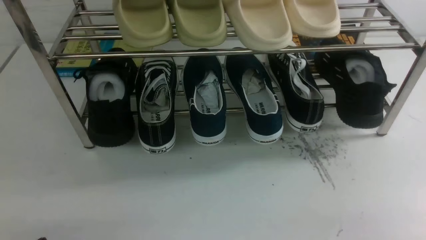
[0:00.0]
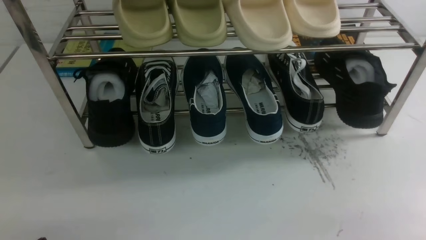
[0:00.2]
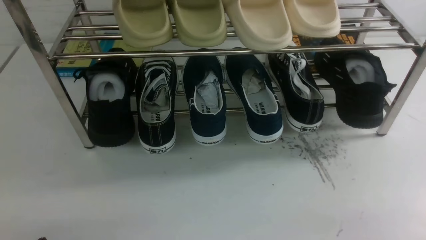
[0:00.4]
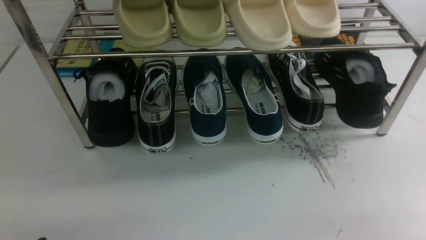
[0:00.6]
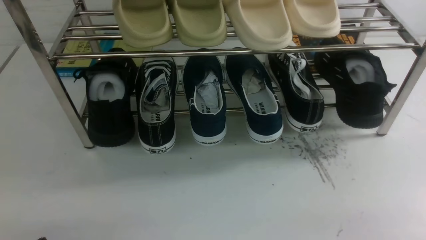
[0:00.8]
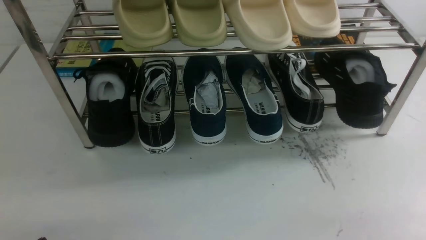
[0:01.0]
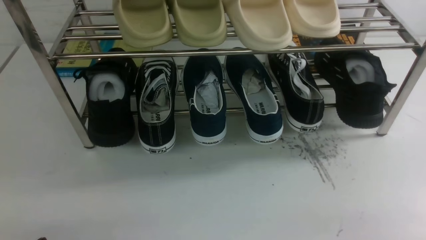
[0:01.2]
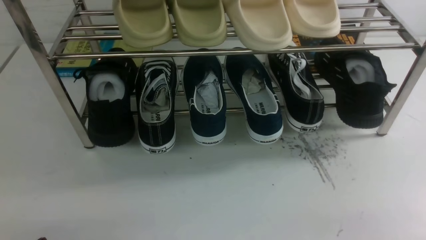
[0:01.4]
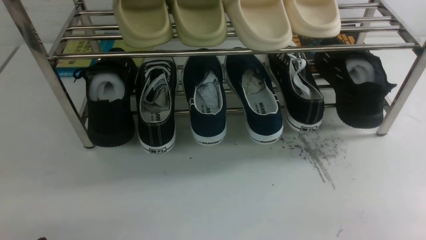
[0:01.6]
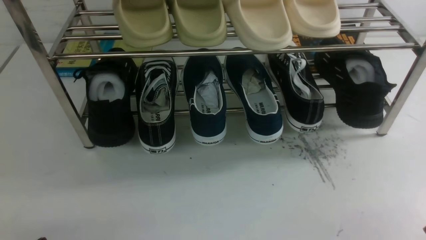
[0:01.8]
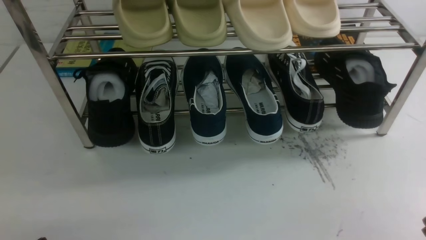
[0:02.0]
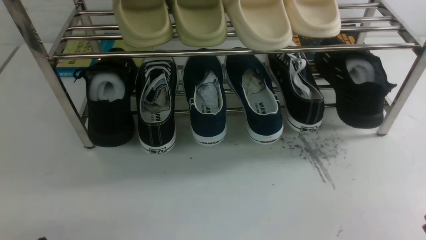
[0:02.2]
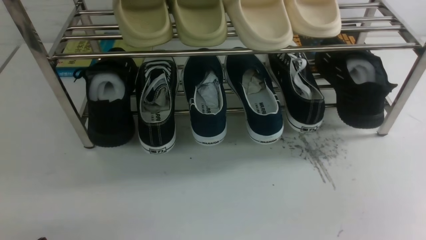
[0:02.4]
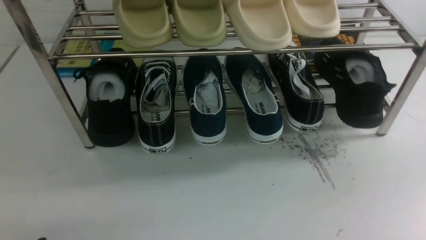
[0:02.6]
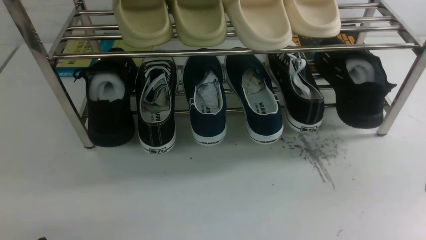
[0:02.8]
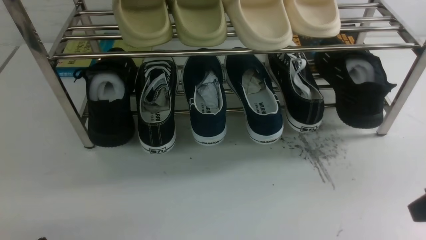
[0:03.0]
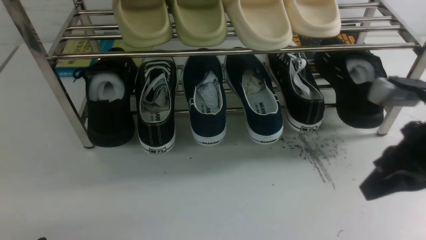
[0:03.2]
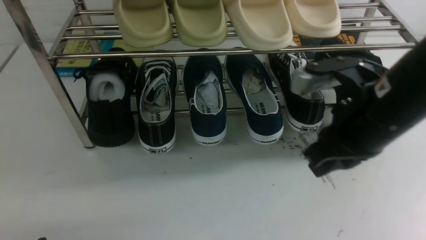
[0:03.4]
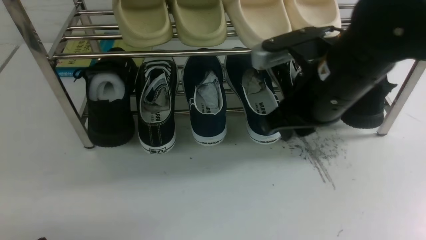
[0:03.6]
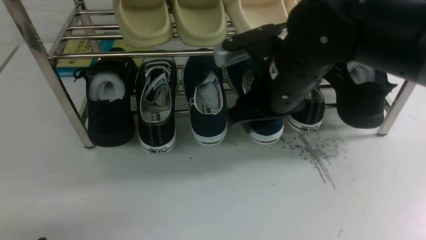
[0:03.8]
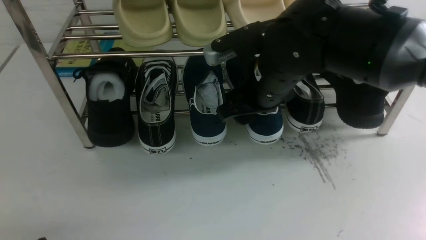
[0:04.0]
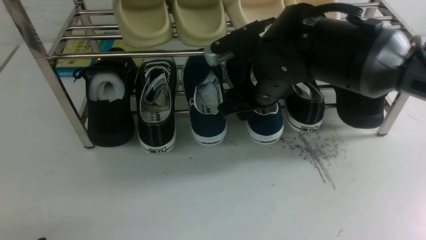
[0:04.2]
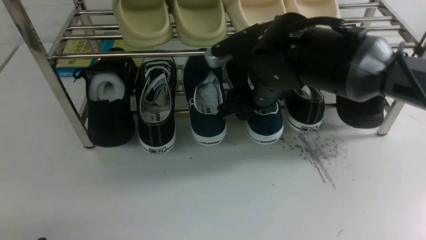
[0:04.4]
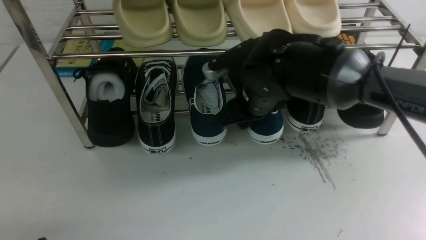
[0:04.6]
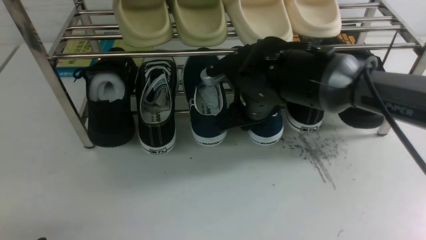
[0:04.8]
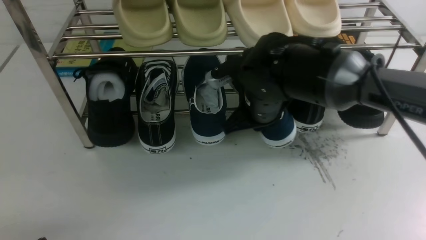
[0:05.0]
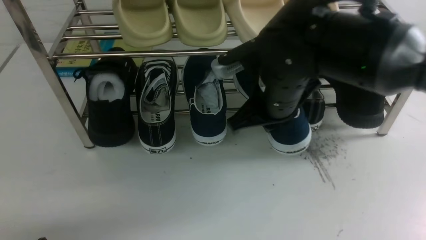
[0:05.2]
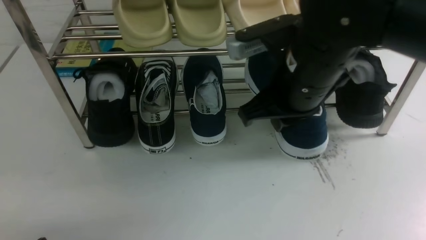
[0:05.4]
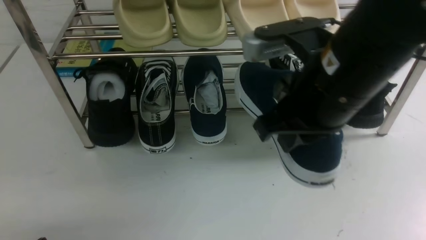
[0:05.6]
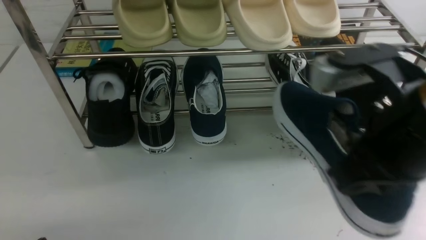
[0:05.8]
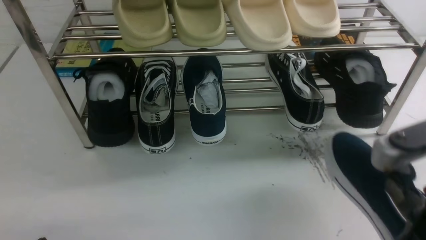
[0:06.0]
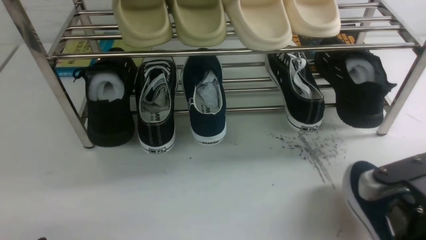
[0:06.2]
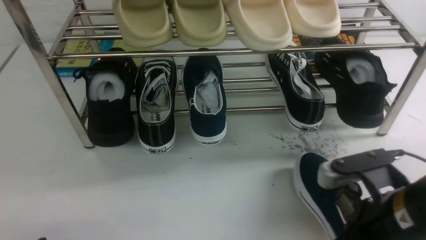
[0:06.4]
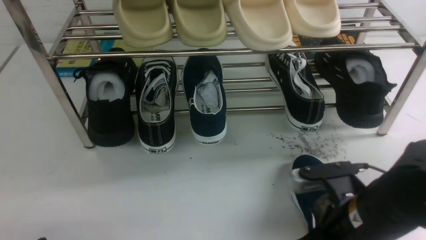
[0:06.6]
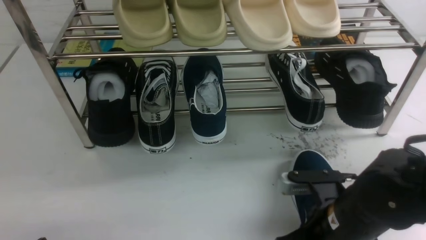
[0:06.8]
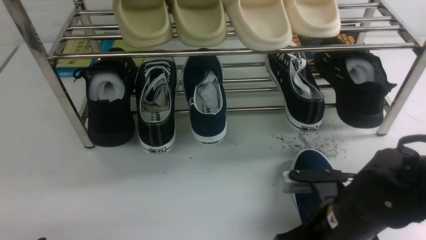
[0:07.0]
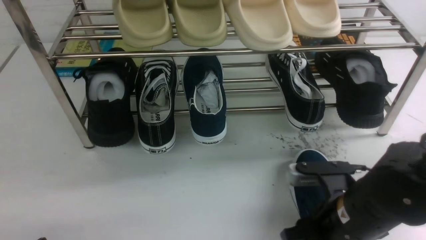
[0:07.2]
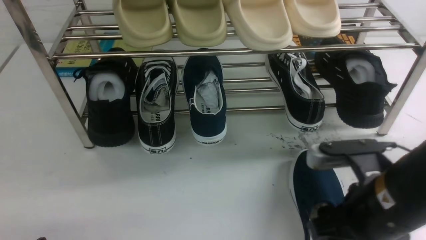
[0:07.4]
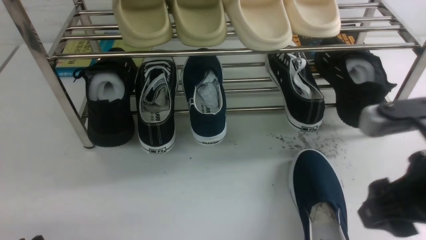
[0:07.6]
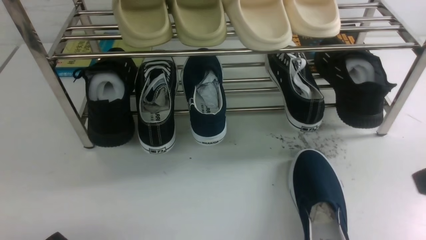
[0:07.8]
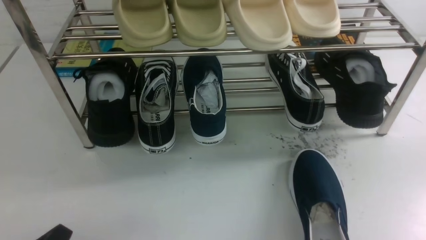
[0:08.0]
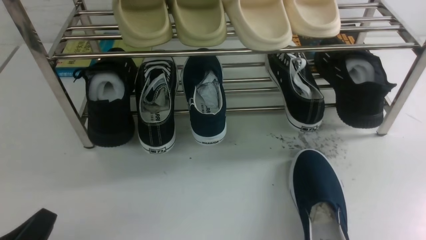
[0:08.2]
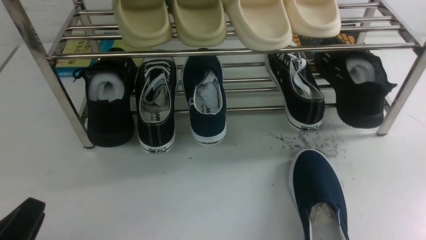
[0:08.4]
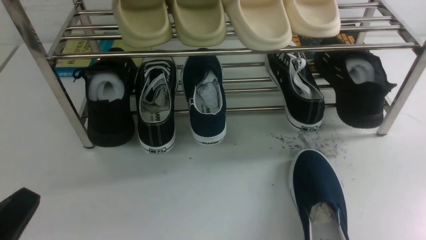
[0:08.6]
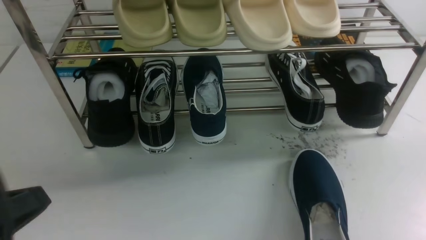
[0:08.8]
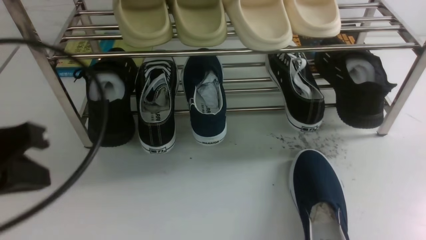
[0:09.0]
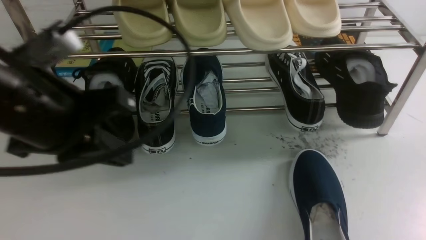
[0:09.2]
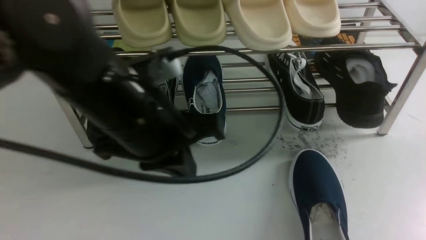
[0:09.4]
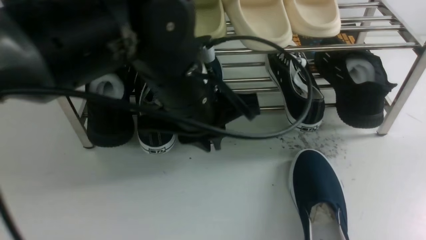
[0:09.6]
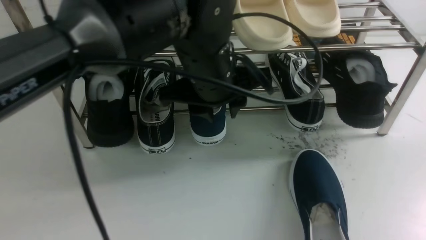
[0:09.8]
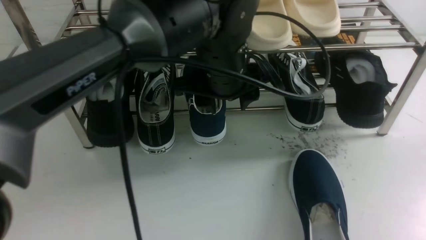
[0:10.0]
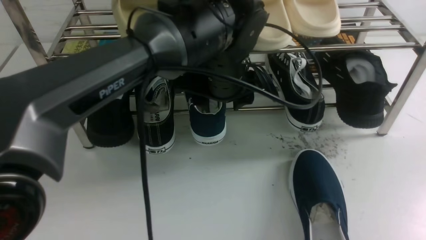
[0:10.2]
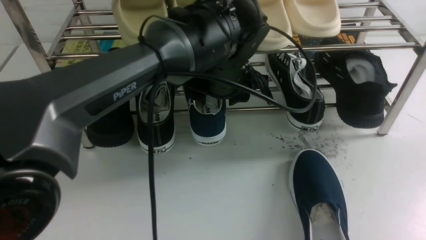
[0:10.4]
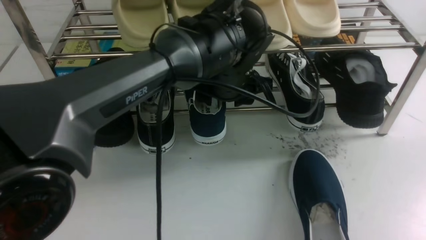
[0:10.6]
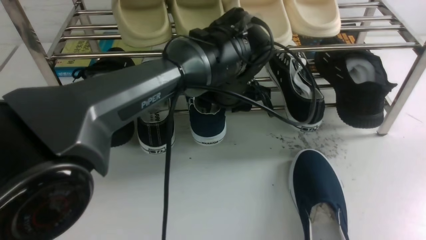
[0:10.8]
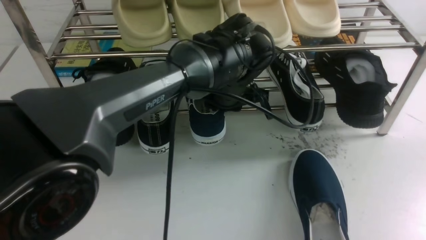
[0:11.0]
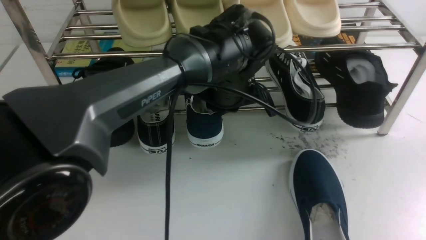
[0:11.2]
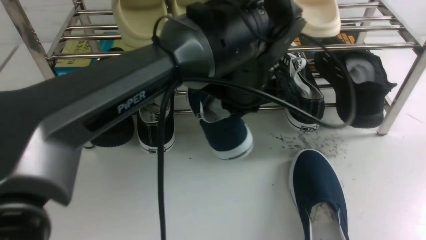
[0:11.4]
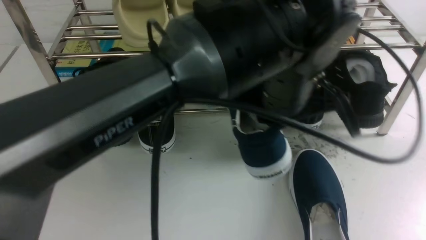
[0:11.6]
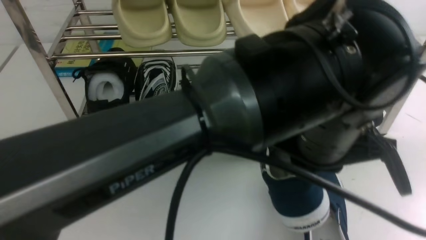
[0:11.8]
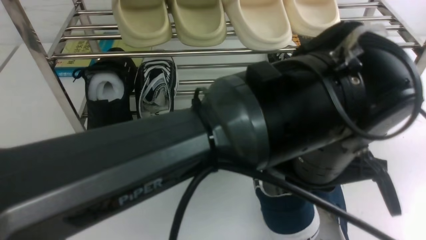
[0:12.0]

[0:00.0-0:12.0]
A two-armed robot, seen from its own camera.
Step, 0:00.0 to 0:05.4: use the right arm to clamp a shoe in the middle of the shoe rack.
Step, 0:05.6 to 0:07.4: use the right arm to take out the clamped shoe from the shoe rack and put it down.
Step, 0:07.8 to 0:11.4: use the left arm to clamp a shoe in the middle of the shoe rack.
0:03.0 to 0:04.4: The right gripper travels to the left and forward by about 25 cm, and opens its fingers.
0:04.4 to 0:06.0: The right gripper travels backward and to the right by approximately 25 cm, and closes its fingers.
0:06.0 to 0:07.6: The right gripper travels downward and back again, approximately 15 cm each way, and opens its fingers.
0:07.6 to 0:09.0: The left gripper is displaced upward and forward by about 20 cm, and closes. Meanwhile the right gripper heads to the right and upward, covering some 10 cm, and closes its fingers.
0:09.0 to 0:10.4: The left gripper heads to the right and forward, covering about 30 cm, and opens up.
0:10.4 to 0:12.0: The left gripper moves backward and to the right, roughly 20 cm, and closes up.

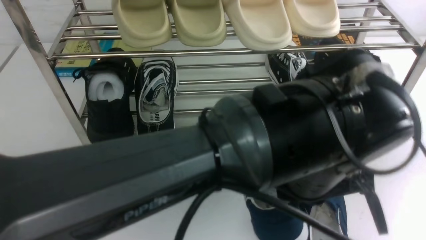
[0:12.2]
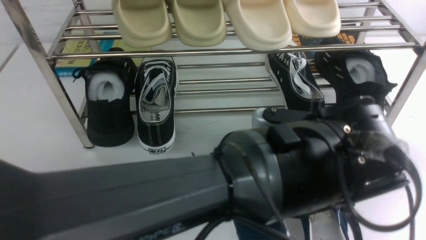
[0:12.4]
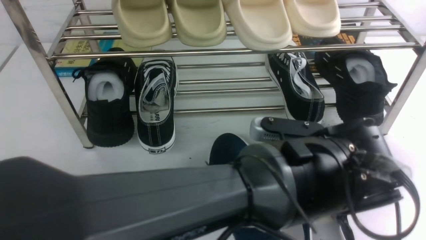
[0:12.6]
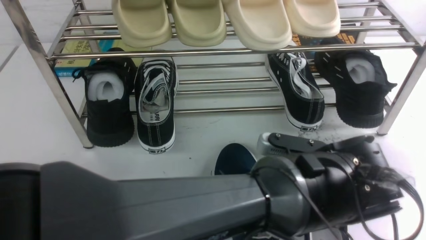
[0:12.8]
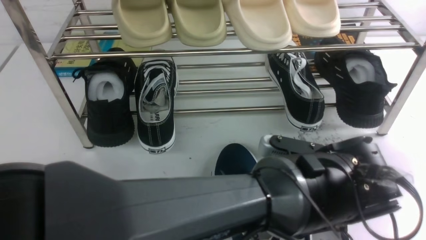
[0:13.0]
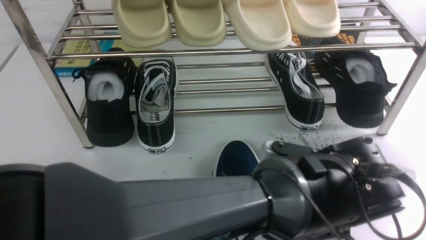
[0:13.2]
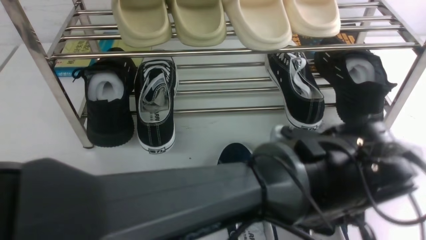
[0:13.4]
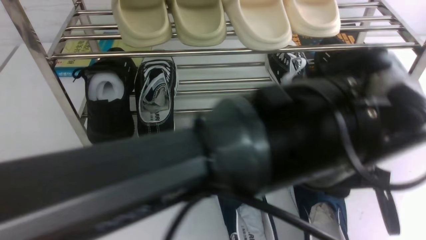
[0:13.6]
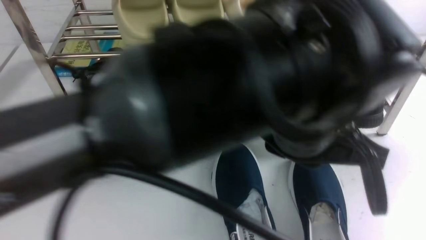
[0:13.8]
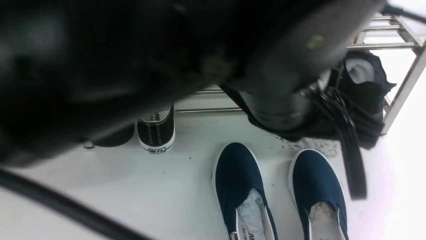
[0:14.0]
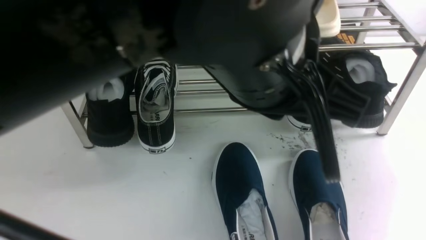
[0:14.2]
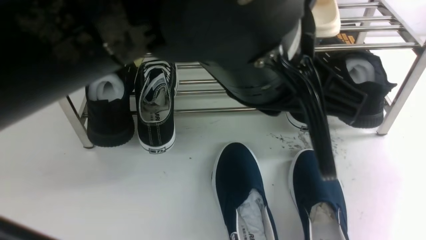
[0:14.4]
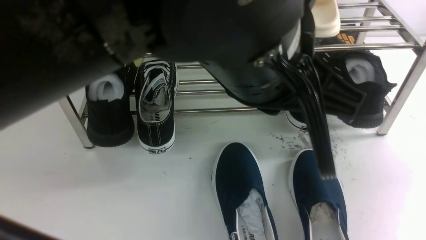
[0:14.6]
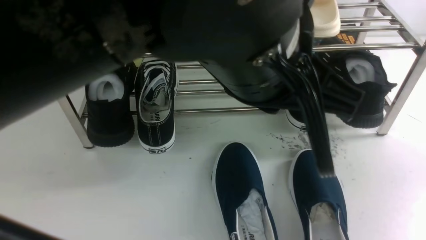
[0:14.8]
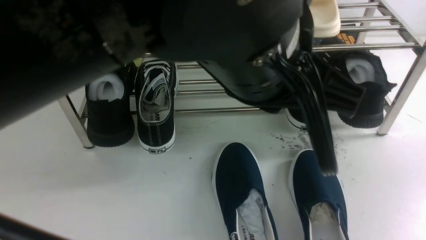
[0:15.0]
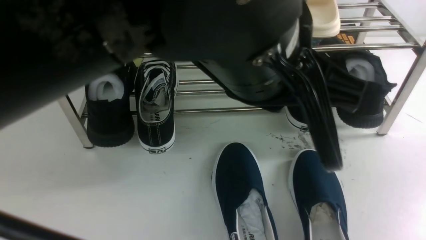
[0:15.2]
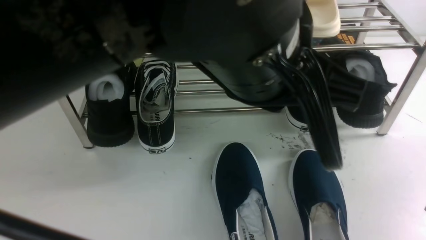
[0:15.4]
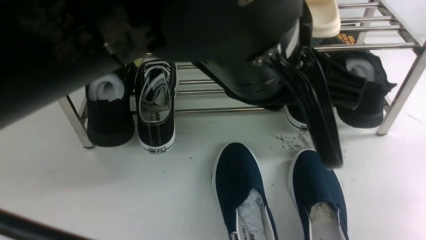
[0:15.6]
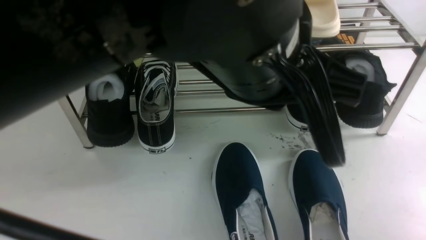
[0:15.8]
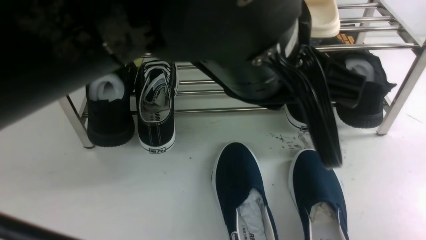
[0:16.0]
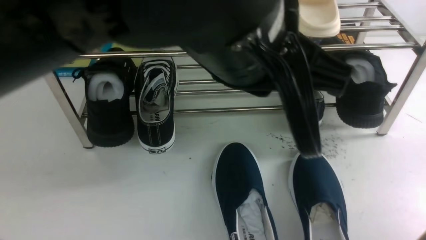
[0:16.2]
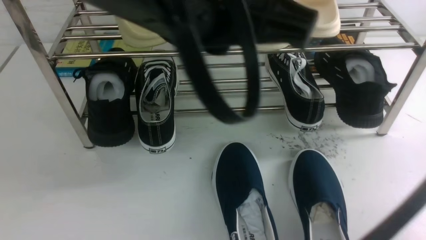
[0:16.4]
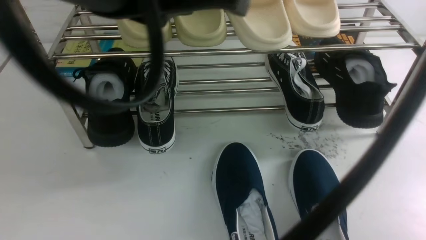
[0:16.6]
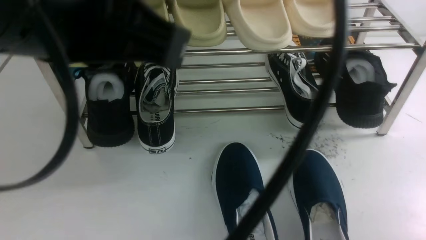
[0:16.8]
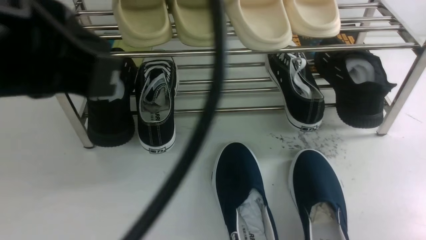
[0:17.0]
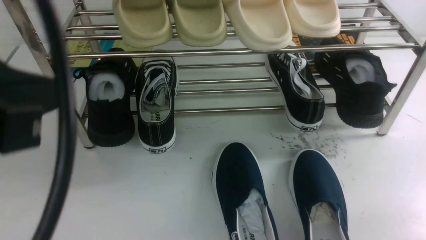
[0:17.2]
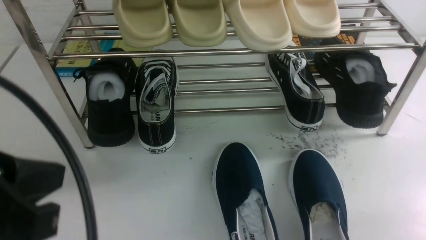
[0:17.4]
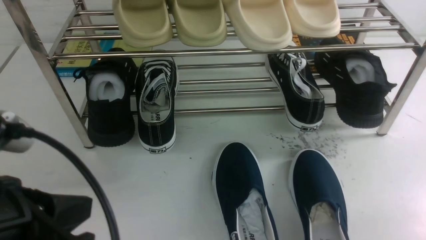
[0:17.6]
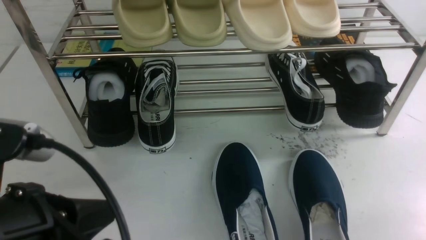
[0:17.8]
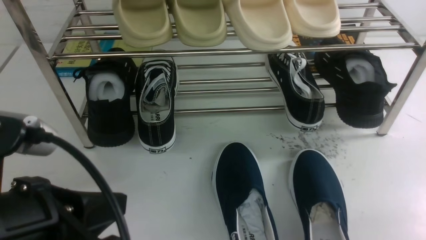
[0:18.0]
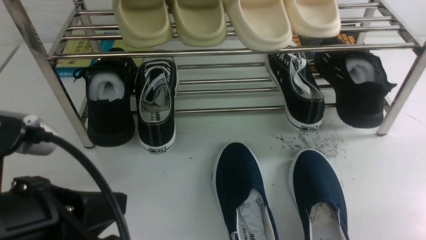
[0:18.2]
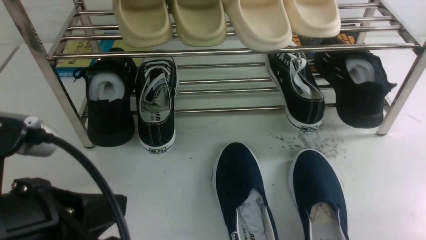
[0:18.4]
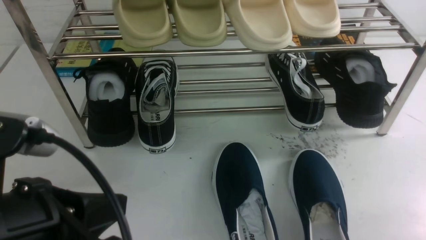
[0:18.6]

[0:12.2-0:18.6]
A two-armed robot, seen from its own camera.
Step, 0:12.2 to 0:13.6: Use your left arm to remove the clamped shoe from the shoe rack and put it down.
0:12.2 to 0:13.8: The left gripper goes about 10 cm upward, and opens, then closes once more. Meanwhile the right gripper moves backward, roughly 5 cm.
0:13.8 to 0:15.4: The right gripper shifts about 15 cm downward; the left gripper travels upward and to the left by roughly 10 cm.
0:15.4 to 0:17.0: The right gripper travels downward by about 10 cm; the left gripper travels to the left by roughly 15 cm.
0:17.0 to 0:18.6: The left gripper heads downward, covering approximately 15 cm.
